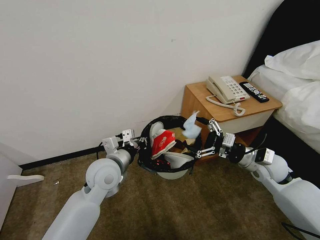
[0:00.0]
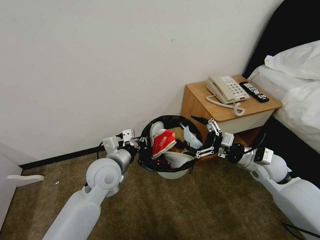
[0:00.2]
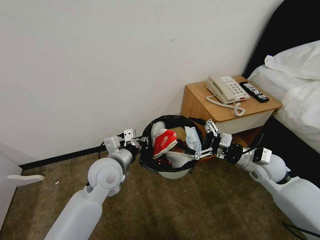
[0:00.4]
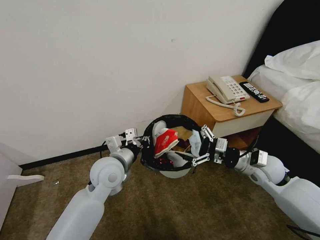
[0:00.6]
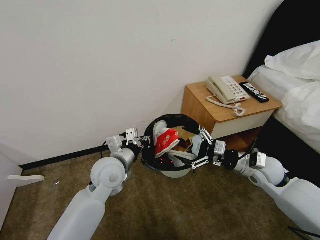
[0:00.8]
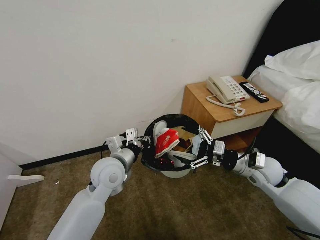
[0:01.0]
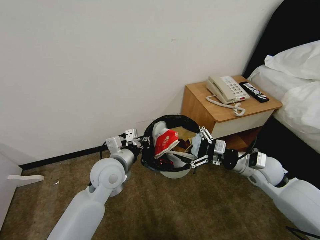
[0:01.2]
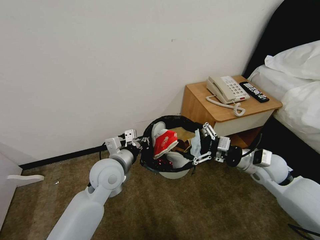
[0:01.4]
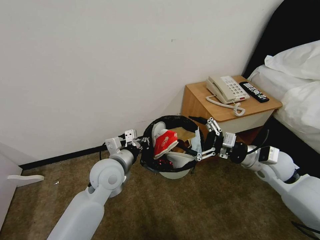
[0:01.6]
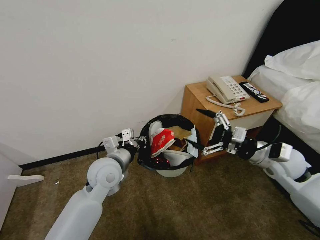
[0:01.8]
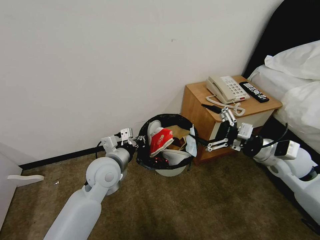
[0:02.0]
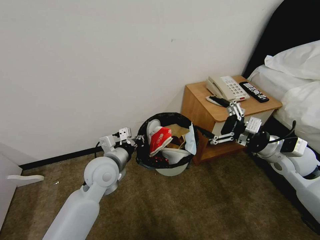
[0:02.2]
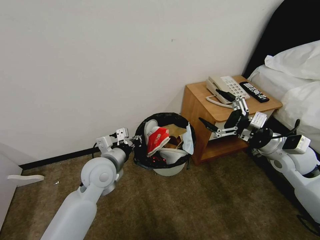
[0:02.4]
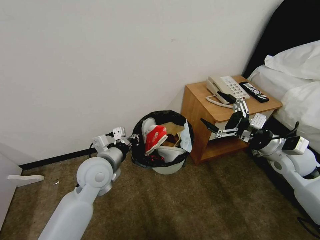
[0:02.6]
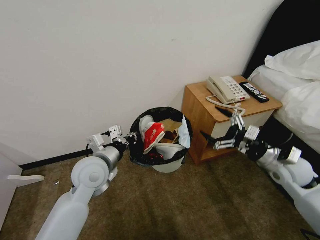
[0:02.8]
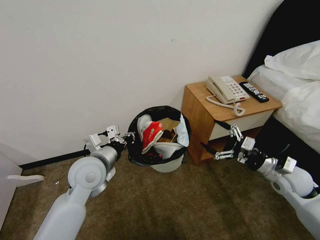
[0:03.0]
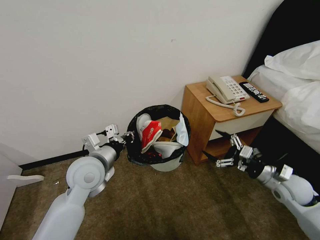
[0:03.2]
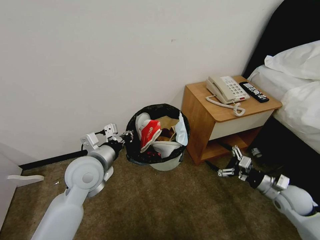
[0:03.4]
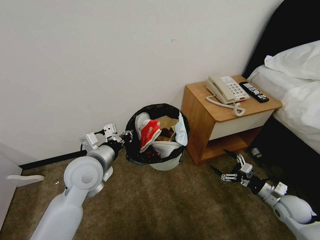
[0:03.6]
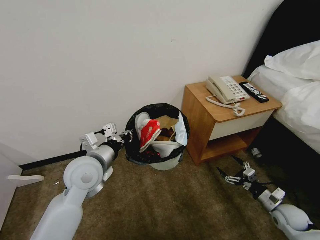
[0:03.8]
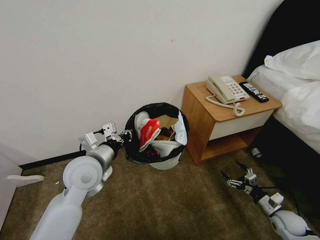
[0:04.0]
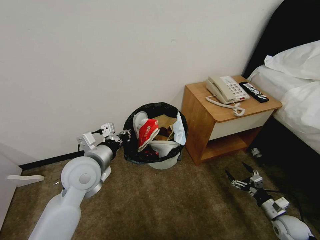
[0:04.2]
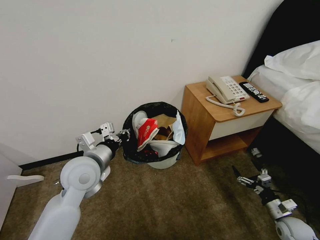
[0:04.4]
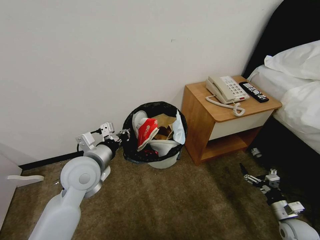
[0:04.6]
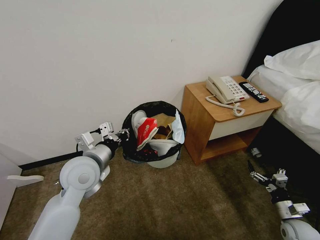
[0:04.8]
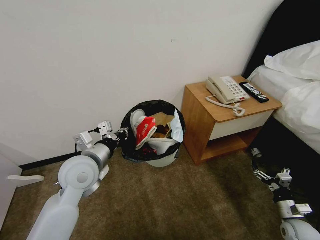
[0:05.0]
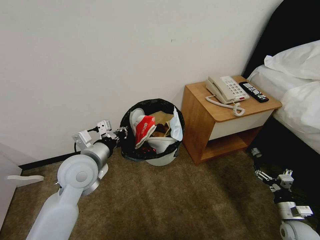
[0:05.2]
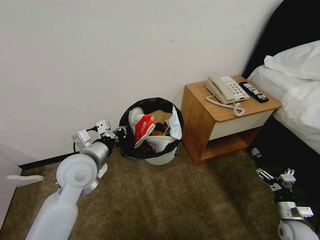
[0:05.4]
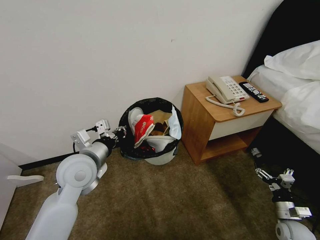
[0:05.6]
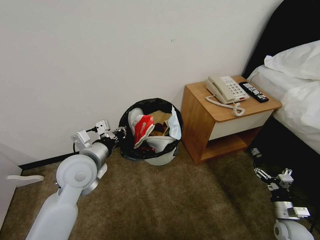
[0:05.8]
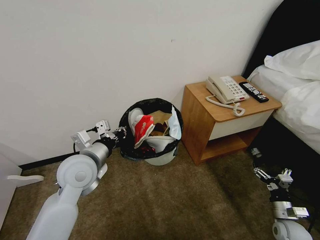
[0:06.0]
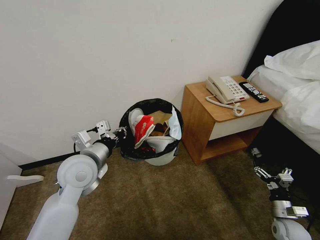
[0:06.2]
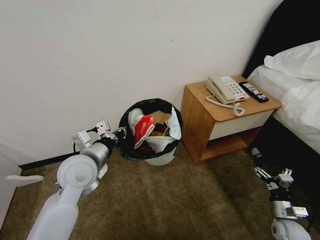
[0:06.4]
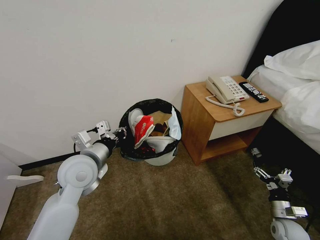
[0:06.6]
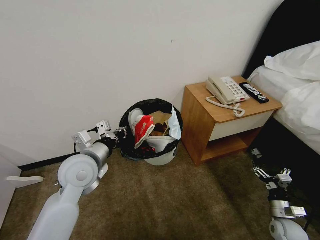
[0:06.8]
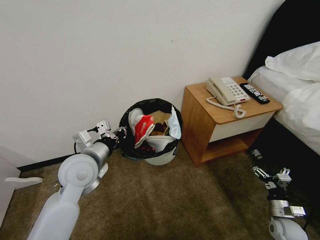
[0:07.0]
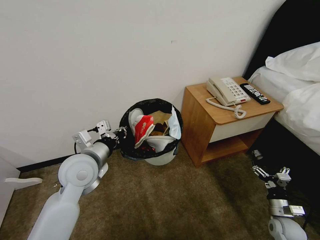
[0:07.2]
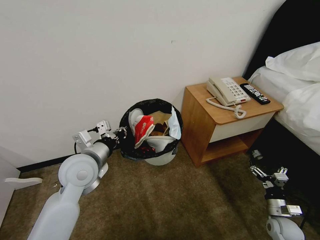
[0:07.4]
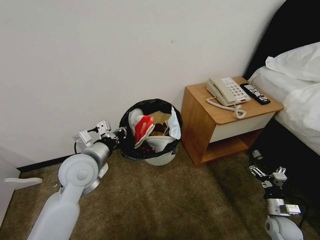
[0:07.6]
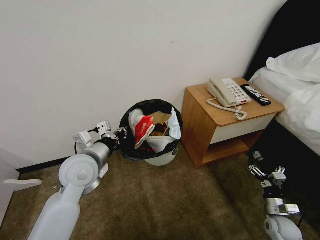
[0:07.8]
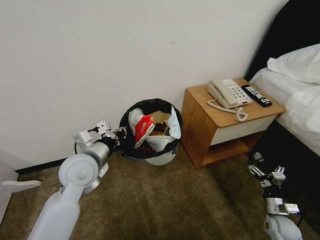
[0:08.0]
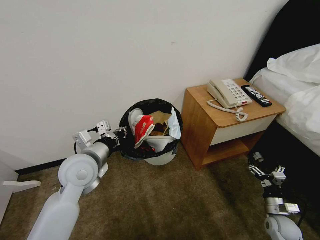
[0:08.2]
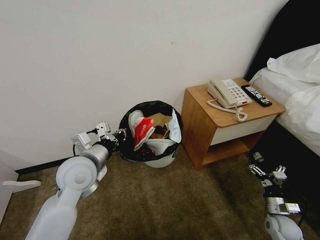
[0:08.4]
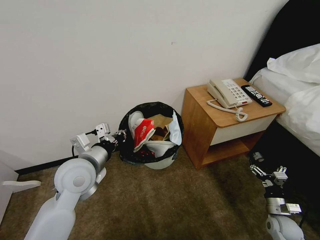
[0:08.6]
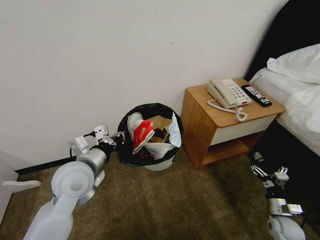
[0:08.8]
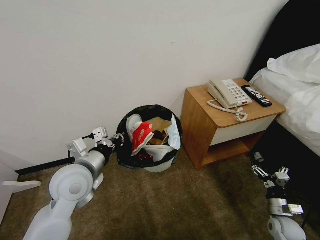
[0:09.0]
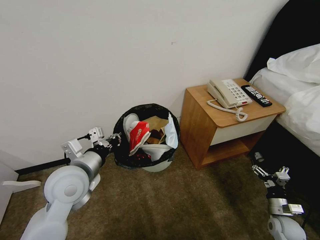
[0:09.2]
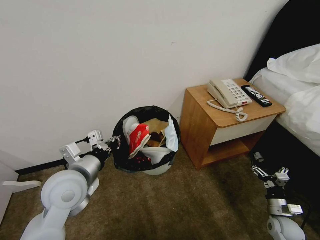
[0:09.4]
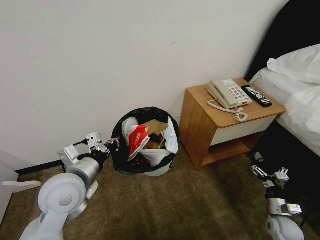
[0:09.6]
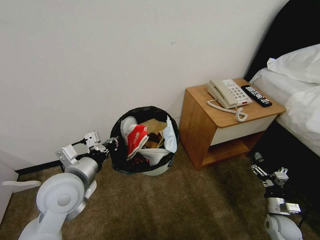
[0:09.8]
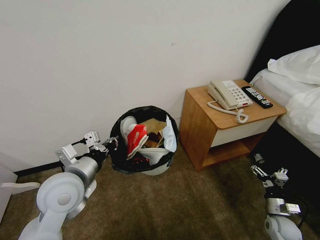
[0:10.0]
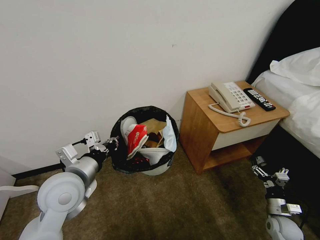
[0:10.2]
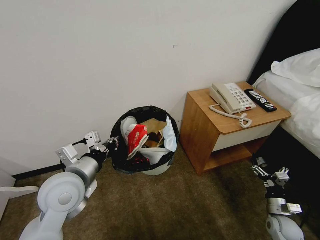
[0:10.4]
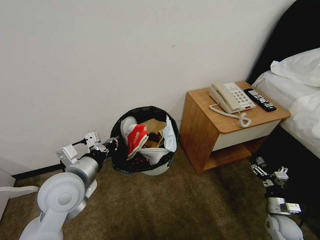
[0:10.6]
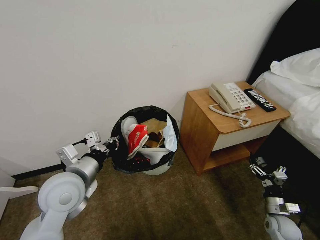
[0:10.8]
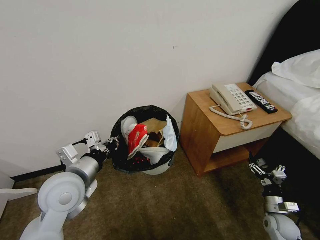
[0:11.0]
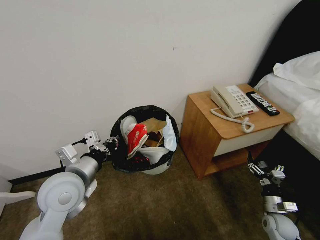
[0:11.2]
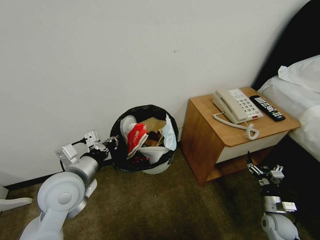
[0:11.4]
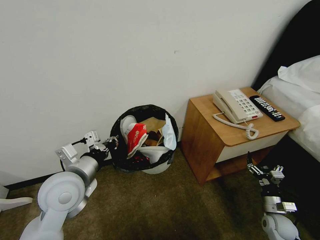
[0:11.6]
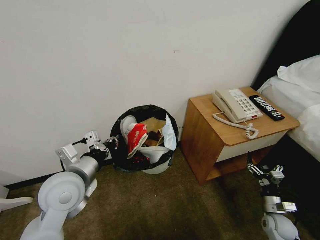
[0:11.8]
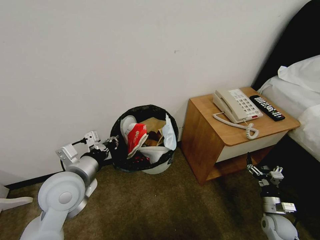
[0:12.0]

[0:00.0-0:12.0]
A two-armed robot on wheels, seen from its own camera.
Task of the whole recording: Pick up the trash bin, then pick up the garbage from the floor and place it into the trash bin.
0:00.0 to 0:01.6: The grippers move only a little.
0:01.6 to 0:03.0: The right gripper heads to the right, covering roughly 5 cm. The left gripper shifts by about 5 cm.
0:03.0 to 0:04.4: The right gripper travels downward and backward by approximately 20 cm.
0:06.0 to 0:12.0: The grippers move only a little.

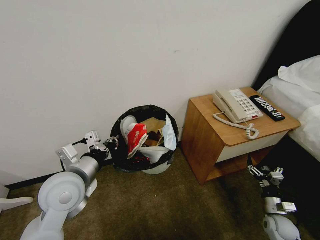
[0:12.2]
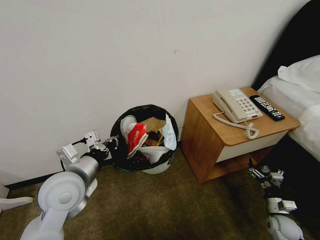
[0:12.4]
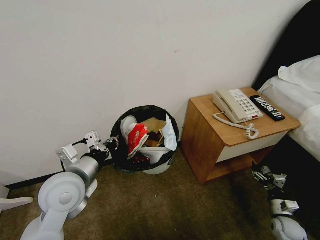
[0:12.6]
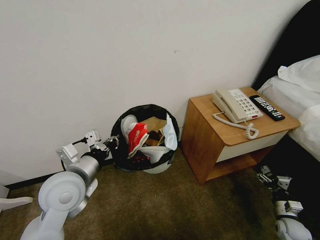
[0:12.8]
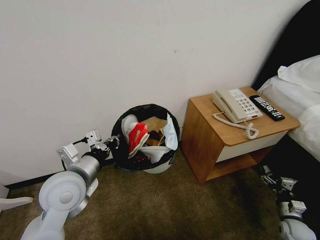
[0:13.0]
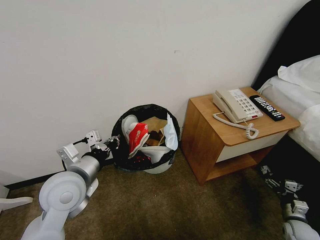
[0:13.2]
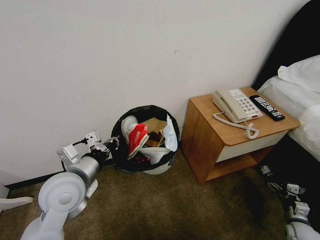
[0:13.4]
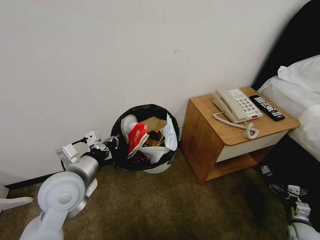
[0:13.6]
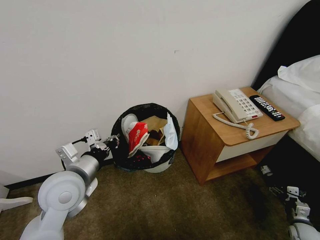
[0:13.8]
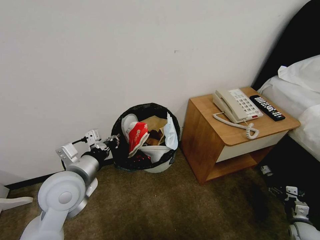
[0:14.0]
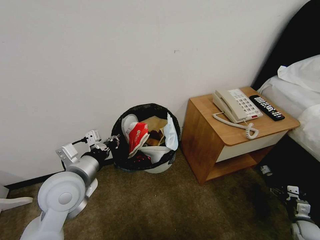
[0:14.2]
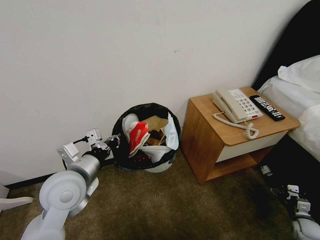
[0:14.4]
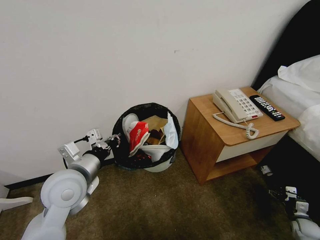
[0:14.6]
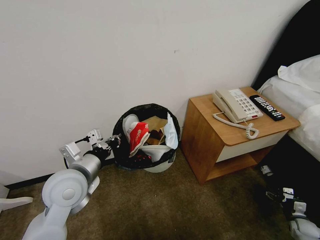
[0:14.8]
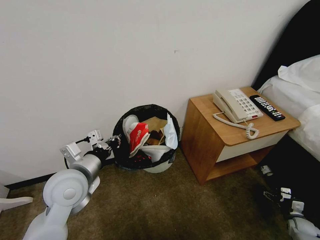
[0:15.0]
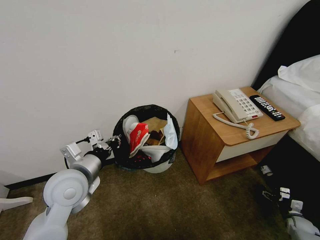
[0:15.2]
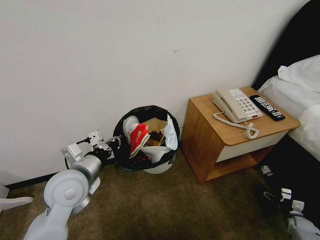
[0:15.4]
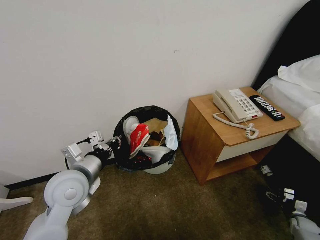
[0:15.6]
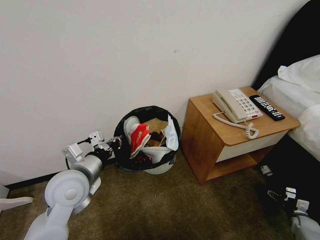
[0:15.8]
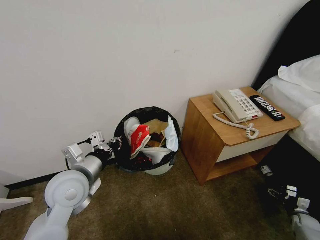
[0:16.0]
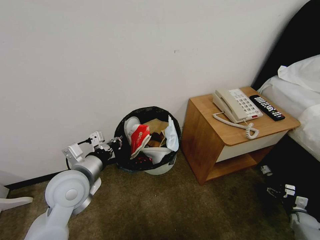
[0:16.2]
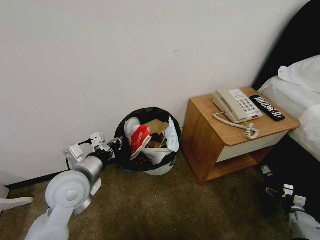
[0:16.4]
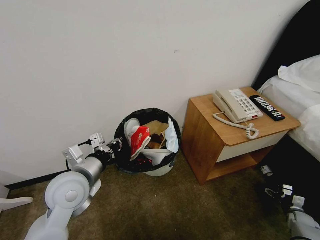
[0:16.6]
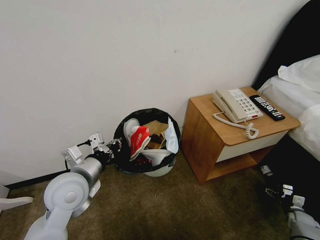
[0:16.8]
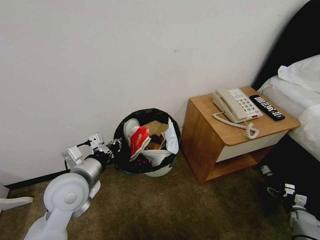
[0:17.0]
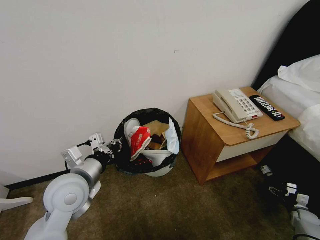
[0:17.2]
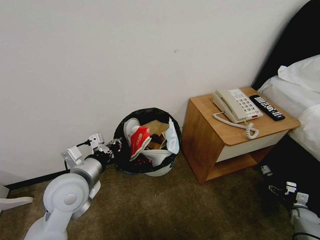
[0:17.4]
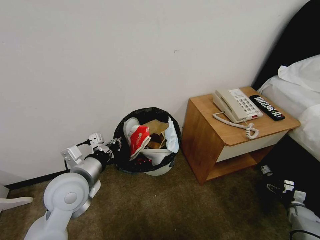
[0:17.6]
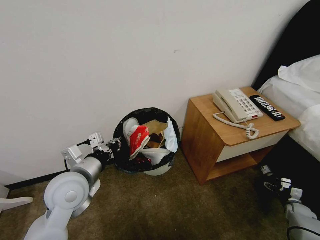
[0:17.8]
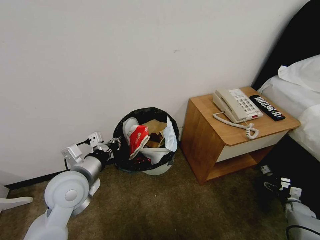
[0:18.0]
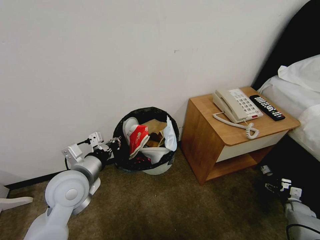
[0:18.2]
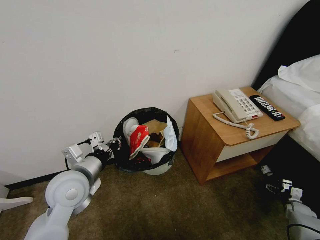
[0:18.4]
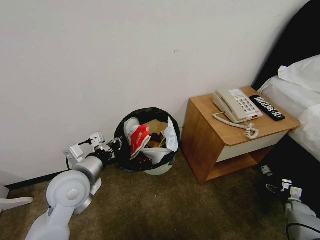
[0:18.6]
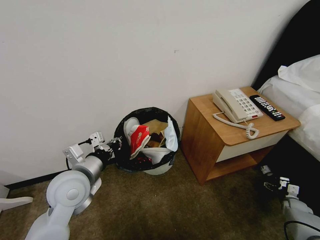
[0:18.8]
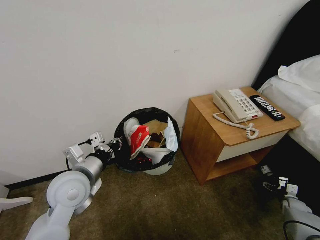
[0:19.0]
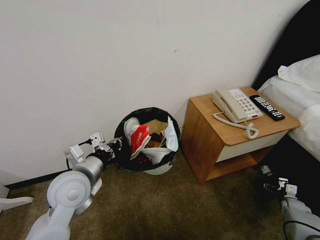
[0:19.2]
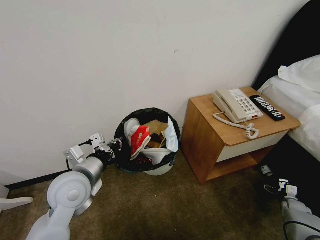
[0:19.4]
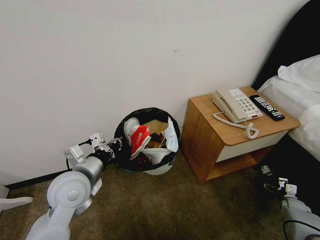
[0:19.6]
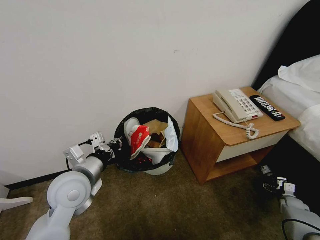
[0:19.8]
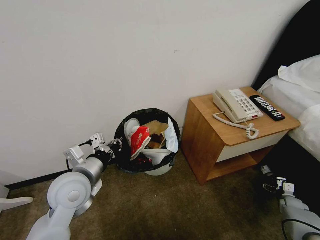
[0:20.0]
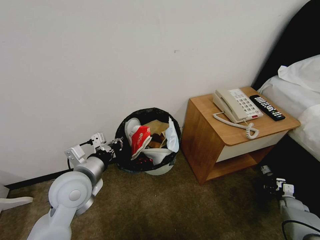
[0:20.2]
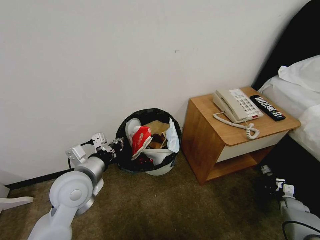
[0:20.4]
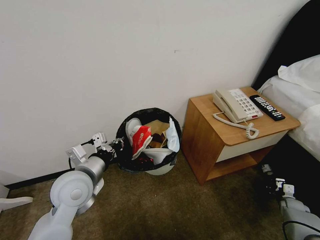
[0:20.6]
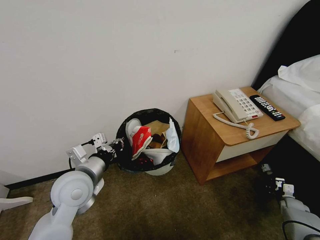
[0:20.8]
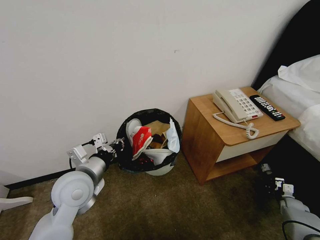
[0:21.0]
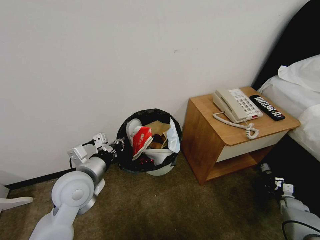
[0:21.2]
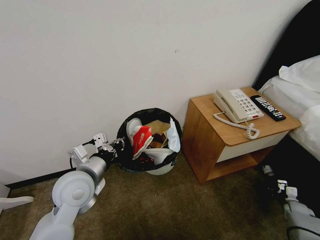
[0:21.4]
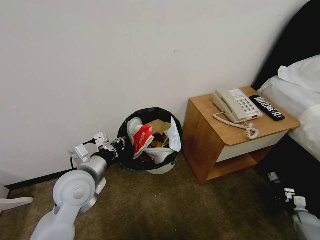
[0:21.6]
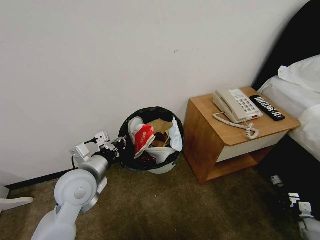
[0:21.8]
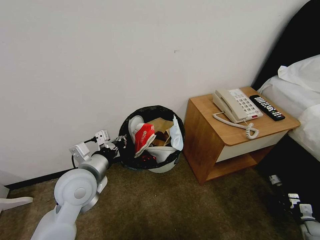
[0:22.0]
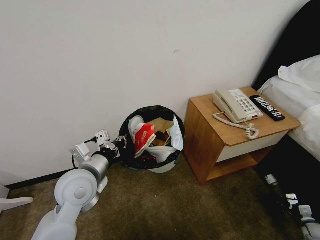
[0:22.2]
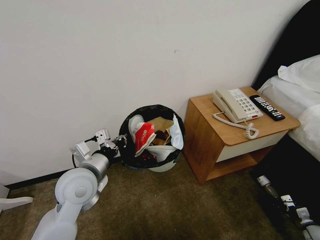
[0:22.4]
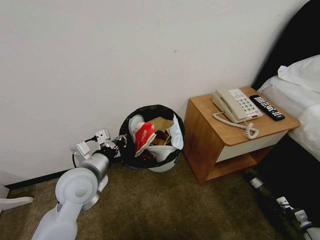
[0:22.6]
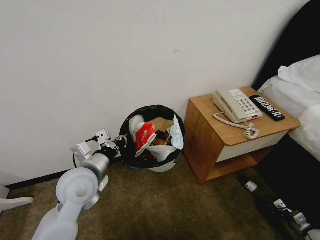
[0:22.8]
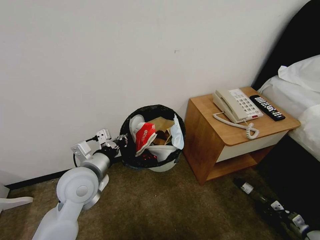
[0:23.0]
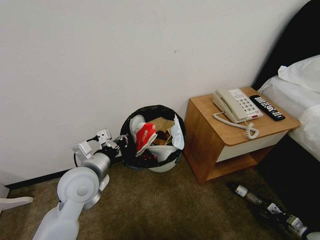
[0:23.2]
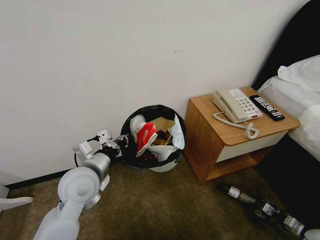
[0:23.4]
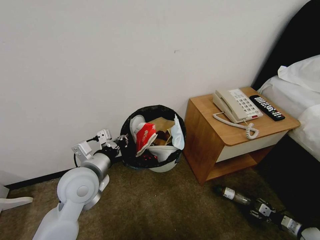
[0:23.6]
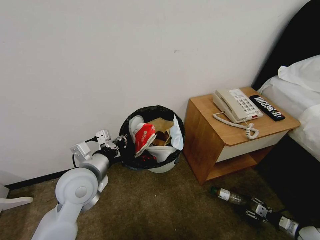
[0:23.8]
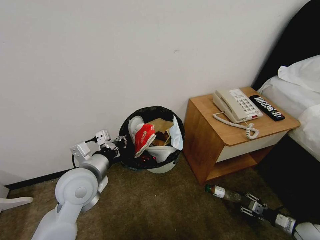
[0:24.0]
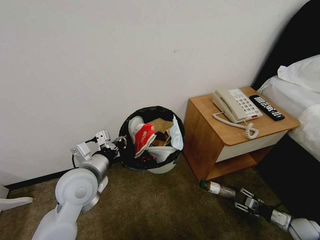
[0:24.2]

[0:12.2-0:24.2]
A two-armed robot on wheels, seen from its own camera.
Task of the whole recording: Pick up the trash bin, then pick up the garbage from the floor and place it into the trash bin.
0:12.2 to 0:13.8: The right gripper goes approximately 10 cm to the right.
0:13.8 to 0:15.2: The right gripper ends up some 5 cm from where it was.
0:15.2 to 0:18.2: The grippers make only small movements.
0:18.2 to 0:19.8: The grippers move only a little.
0:19.8 to 0:21.2: The right gripper closes its fingers.
0:21.2 to 0:22.6: The right gripper heads backward, covering roughly 10 cm.
0:22.6 to 0:24.2: The right gripper is displaced to the left by about 10 cm.
